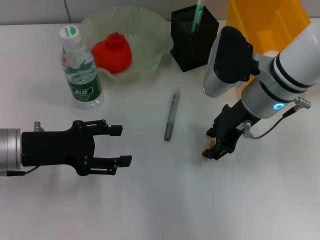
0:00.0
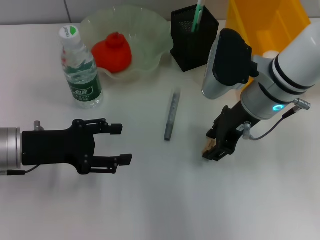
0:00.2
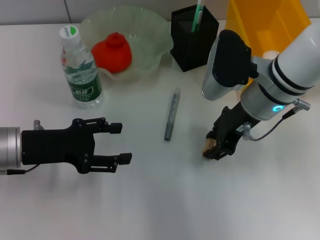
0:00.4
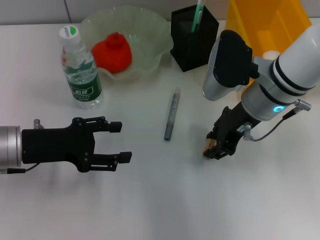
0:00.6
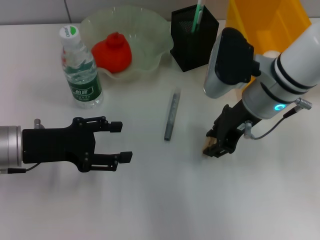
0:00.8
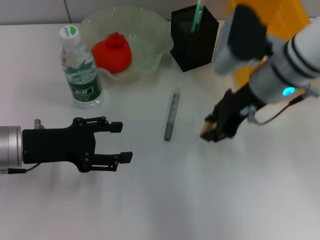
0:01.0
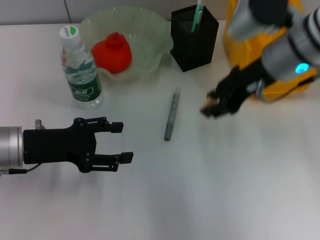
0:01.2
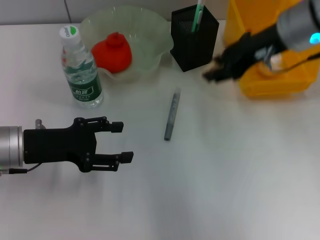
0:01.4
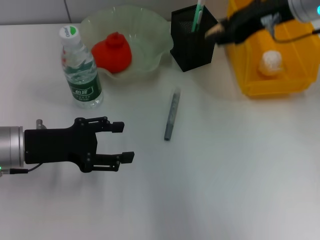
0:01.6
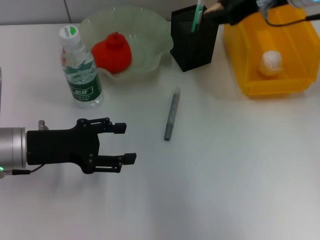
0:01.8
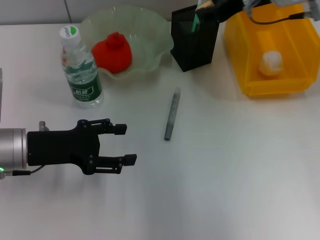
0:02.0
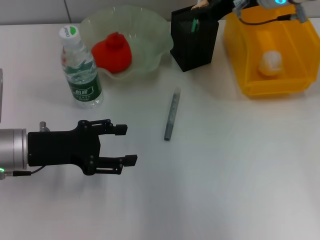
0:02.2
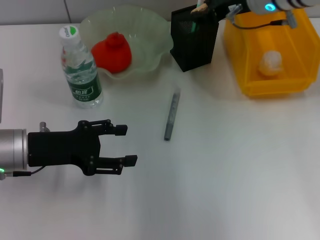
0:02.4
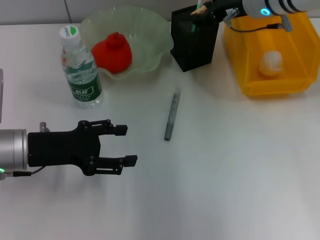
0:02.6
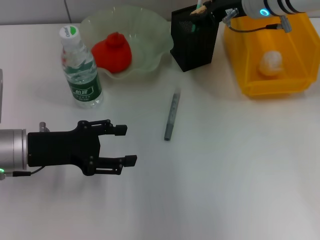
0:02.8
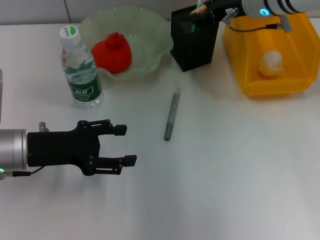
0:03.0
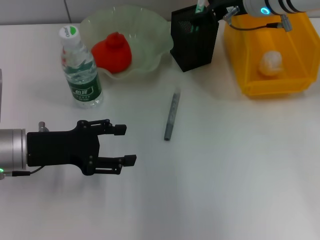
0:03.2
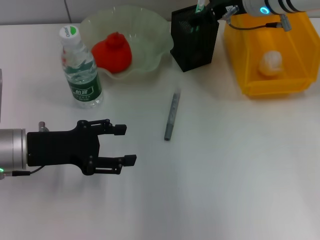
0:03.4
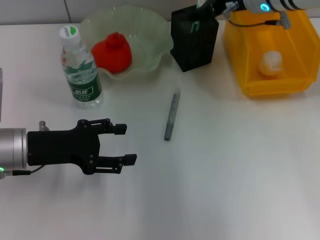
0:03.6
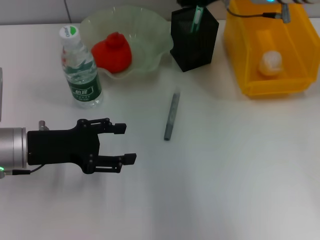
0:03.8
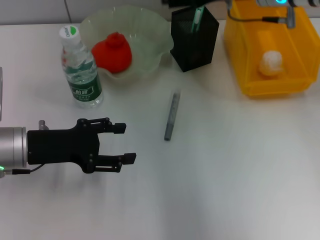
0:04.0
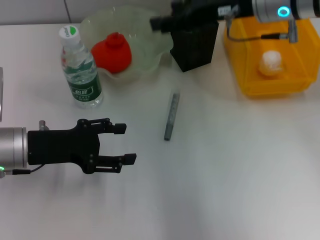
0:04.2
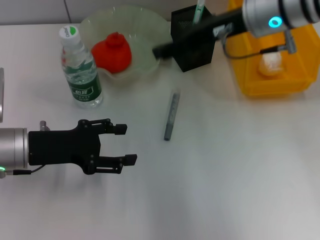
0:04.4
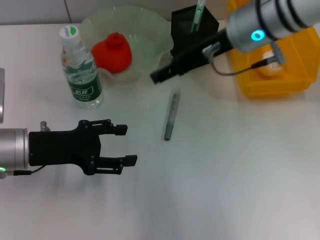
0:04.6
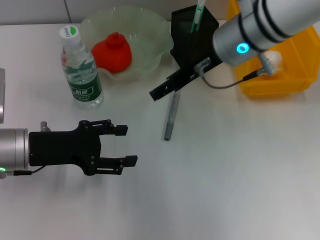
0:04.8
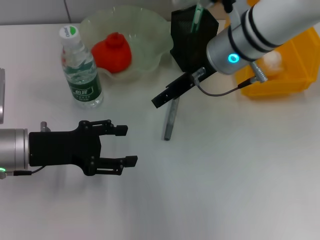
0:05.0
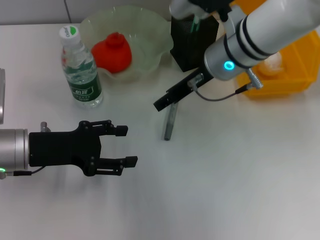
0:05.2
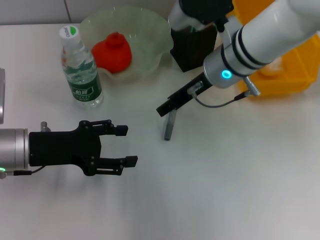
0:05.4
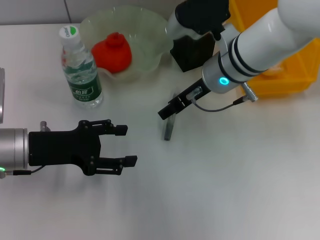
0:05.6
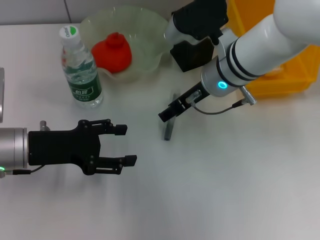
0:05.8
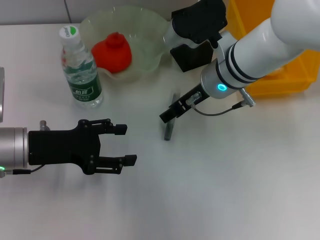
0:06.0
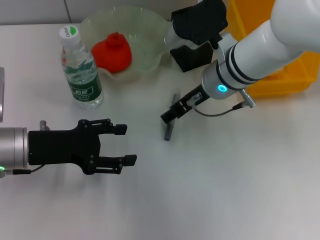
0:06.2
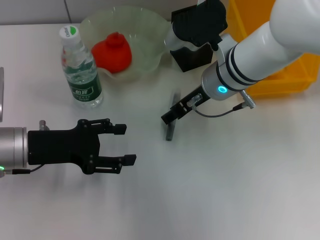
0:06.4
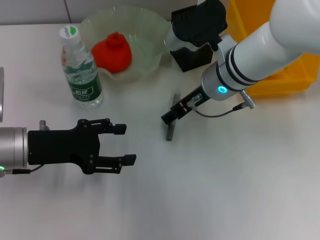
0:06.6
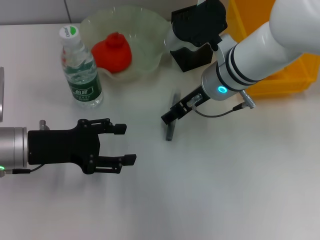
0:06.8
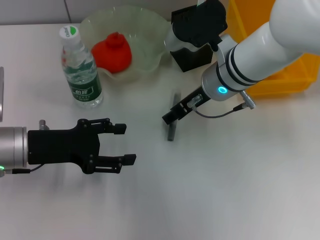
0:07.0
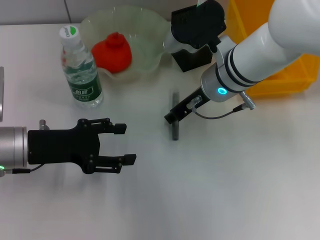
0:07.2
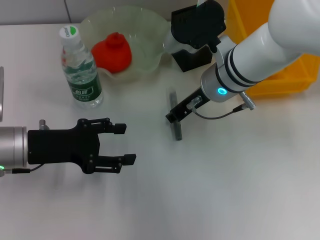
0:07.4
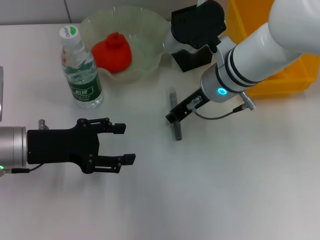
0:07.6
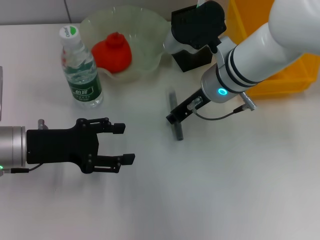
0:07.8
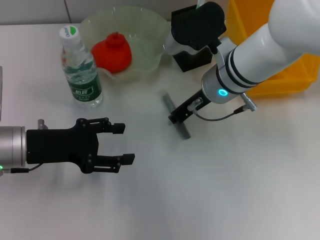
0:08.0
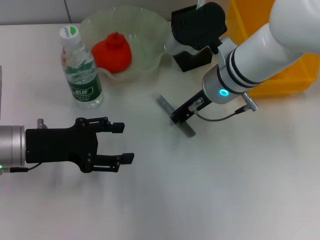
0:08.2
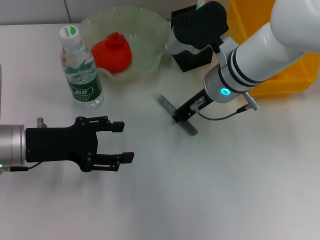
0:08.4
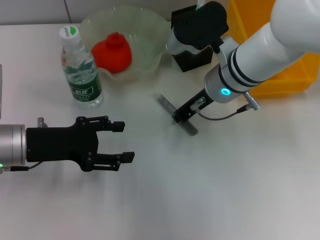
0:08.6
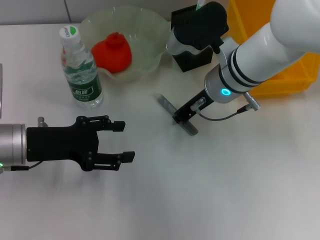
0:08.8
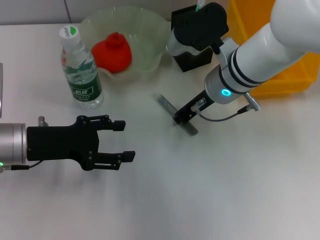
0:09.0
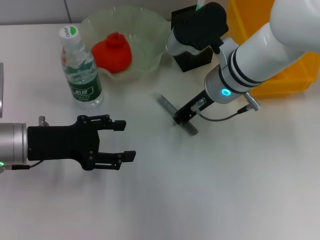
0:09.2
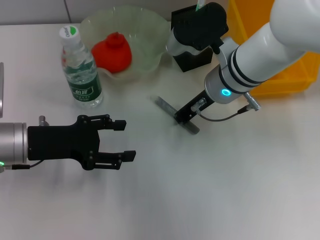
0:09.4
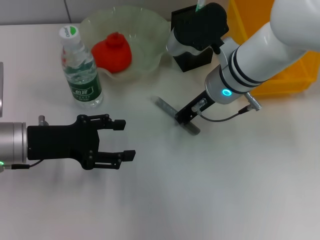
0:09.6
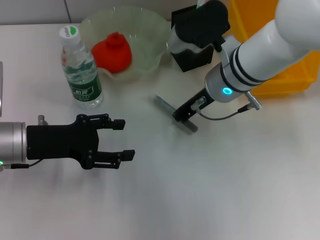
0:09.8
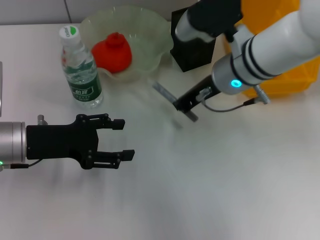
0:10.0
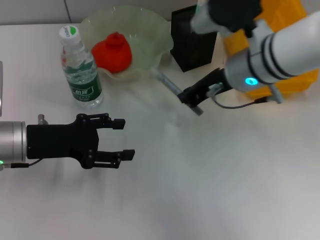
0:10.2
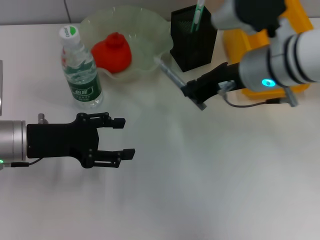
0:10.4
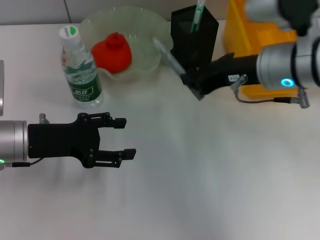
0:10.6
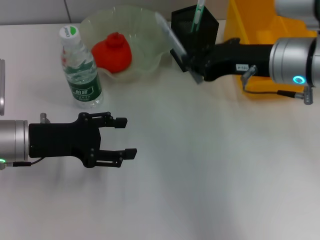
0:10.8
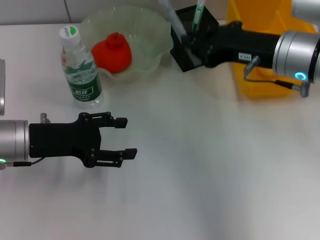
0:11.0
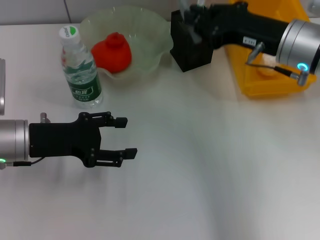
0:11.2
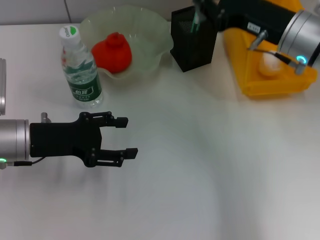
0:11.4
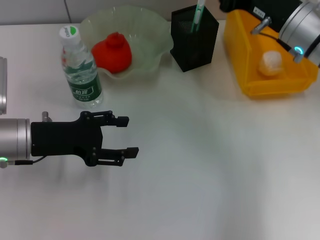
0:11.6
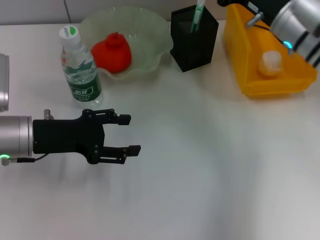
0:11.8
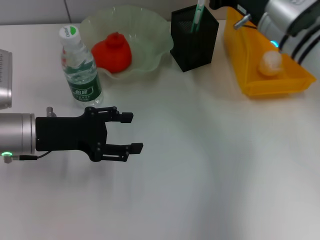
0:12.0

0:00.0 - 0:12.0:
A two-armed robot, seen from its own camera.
Step, 0:00.8 - 0:03.0: Put the eraser into the pen holder with the right hand.
Step, 0:03.2 - 0:09.6: Grab the gray glue with the right hand.
0:00.0 - 0:01.6: The right gripper goes roughly 10 cm upward.
0:01.6 - 0:03.0: The right gripper is displaced downward and forward by some 10 cm.
0:03.0 - 0:04.4: The right gripper moves backward, some 5 cm, and opens its fingers.
0:04.4 - 0:06.0: The right gripper goes roughly 10 cm downward and to the left.
0:06.0 - 0:07.6: The right gripper closes up.
0:07.6 - 0:09.0: Neither gripper changes place.
0:09.0 - 0:10.4: The right gripper changes place by approximately 5 cm.
0:10.4 - 0:12.0: The right gripper moves forward, about 5 cm.

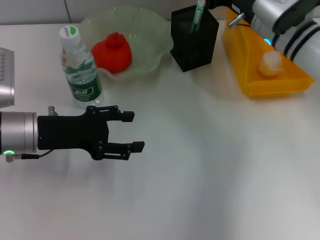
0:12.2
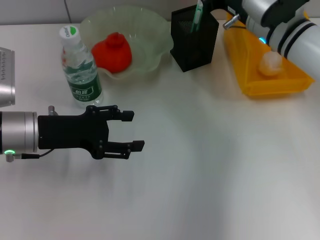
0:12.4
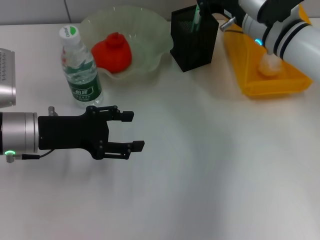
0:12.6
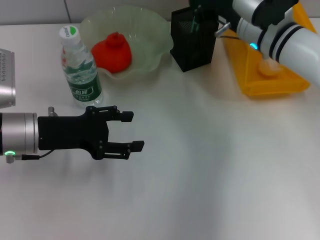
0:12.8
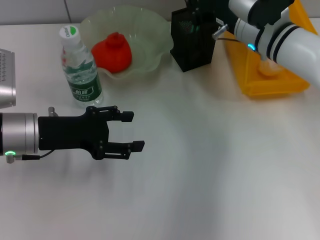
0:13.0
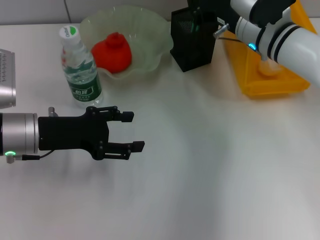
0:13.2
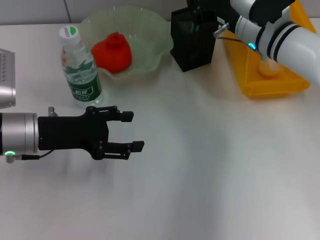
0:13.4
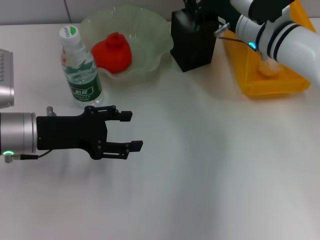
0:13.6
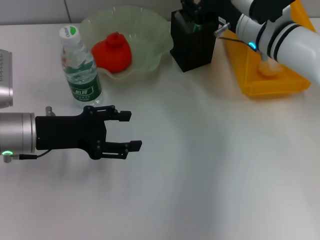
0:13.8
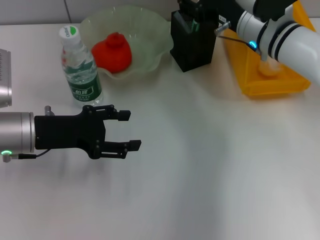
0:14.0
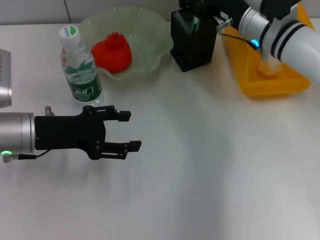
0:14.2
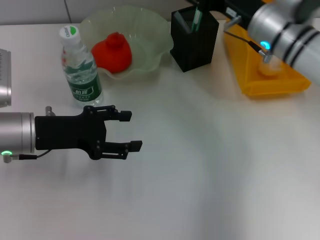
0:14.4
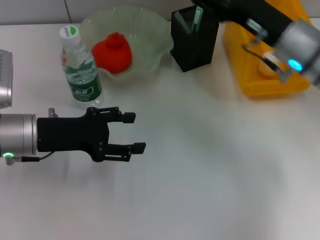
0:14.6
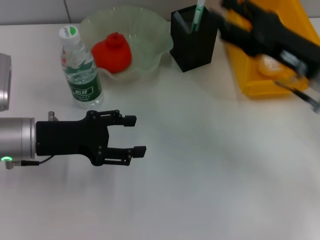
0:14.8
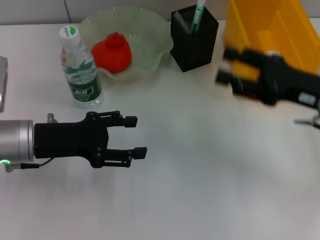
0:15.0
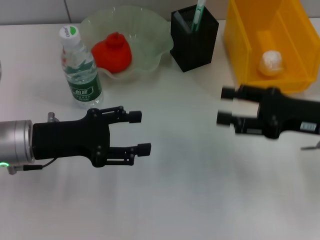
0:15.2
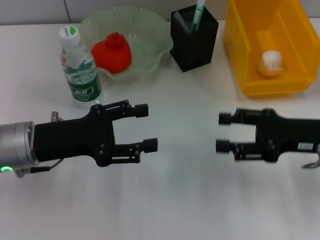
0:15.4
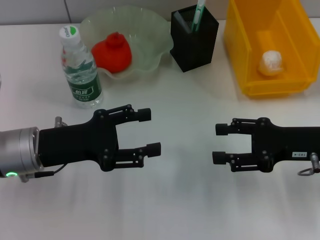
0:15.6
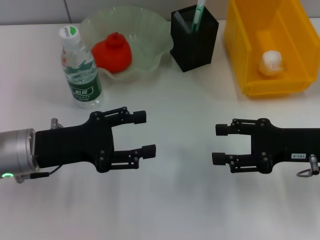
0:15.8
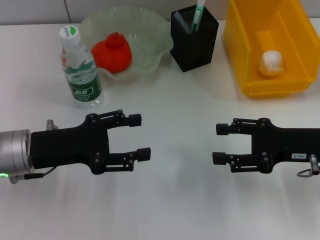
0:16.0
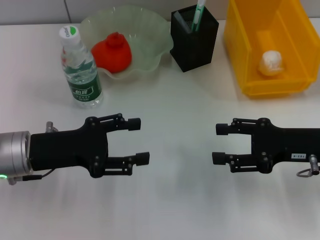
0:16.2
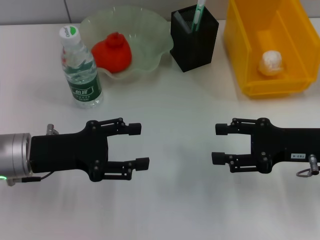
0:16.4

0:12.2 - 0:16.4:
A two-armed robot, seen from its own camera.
0:12.2 - 0:13.6: The grippers make only small movements.
0:13.6 - 0:15.0: The right gripper moves backward and to the right, about 15 cm, and opens.
